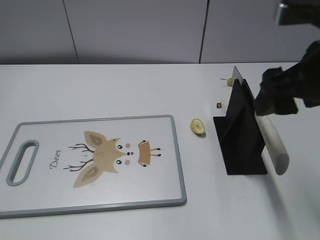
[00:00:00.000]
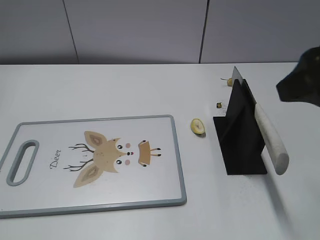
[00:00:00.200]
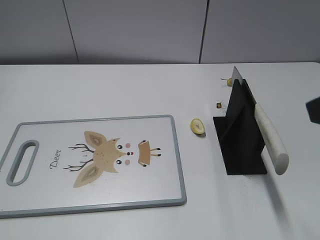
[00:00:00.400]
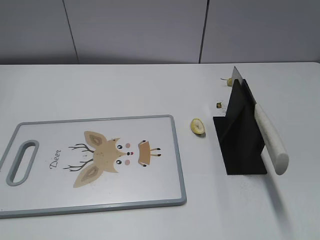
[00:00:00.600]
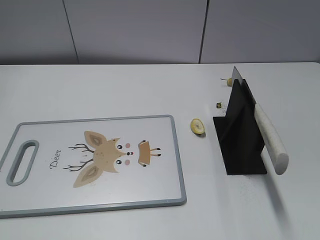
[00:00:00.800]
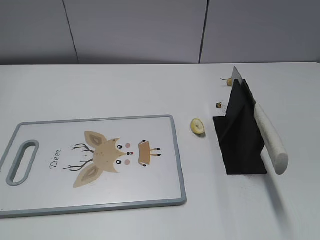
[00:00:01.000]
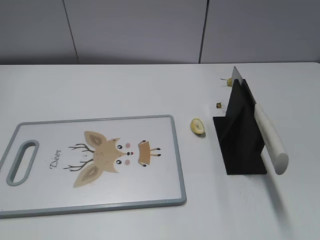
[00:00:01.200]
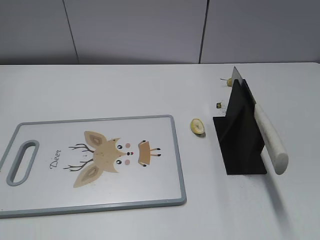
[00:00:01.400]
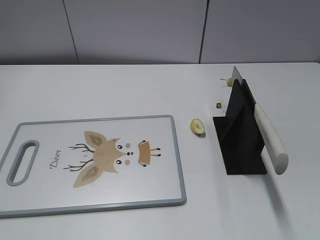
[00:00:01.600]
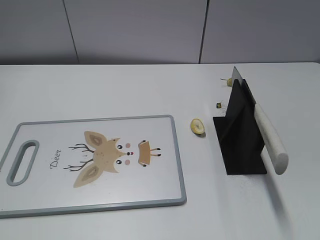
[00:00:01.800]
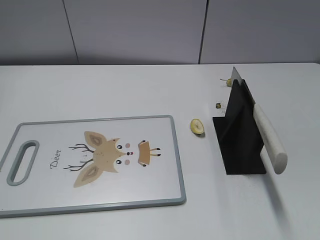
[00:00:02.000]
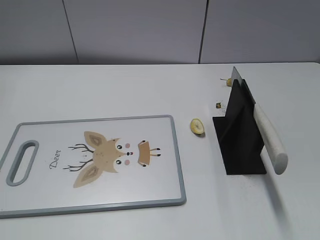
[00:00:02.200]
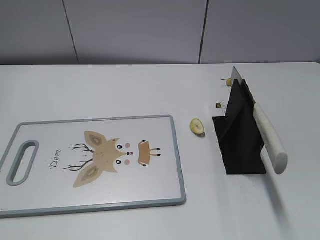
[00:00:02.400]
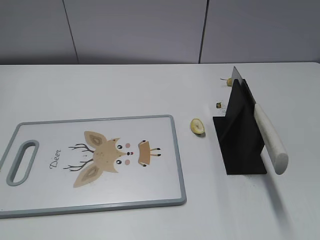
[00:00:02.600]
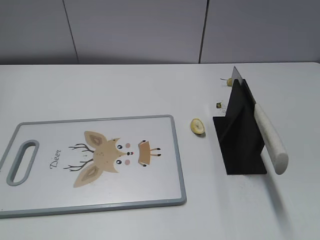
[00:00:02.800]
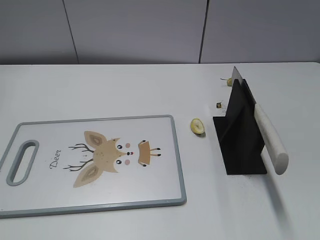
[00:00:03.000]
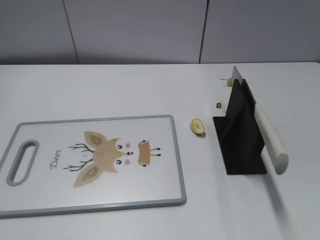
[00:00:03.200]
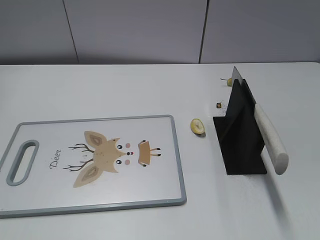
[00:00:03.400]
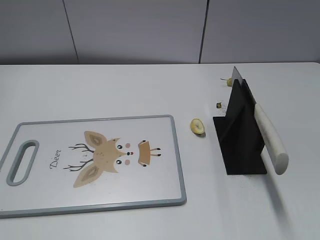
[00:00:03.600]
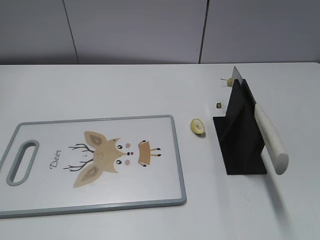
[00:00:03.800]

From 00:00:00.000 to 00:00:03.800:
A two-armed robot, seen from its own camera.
Task of the whole recording: cut banana.
Step, from 00:00:00.000 to 00:00:03.800: Place the knife on the storage rack with your right hand.
From 00:00:00.000 to 00:00:01.200: The right gripper heads backward and to the right, covering roughly 20 cm.
